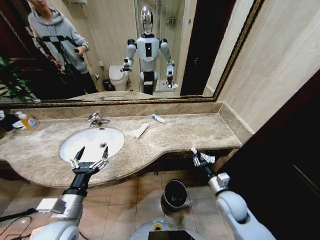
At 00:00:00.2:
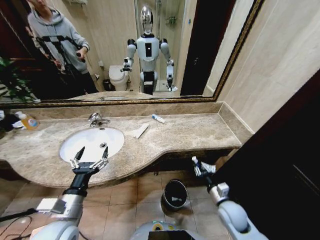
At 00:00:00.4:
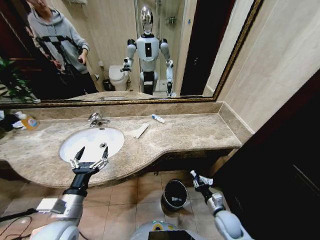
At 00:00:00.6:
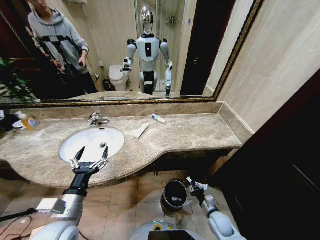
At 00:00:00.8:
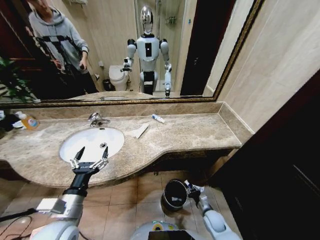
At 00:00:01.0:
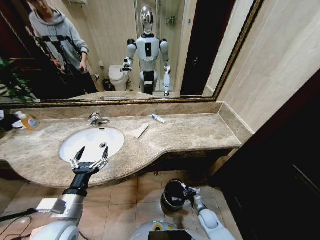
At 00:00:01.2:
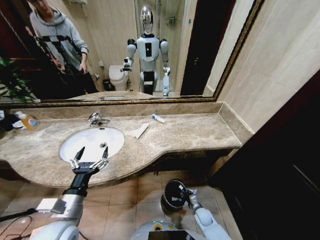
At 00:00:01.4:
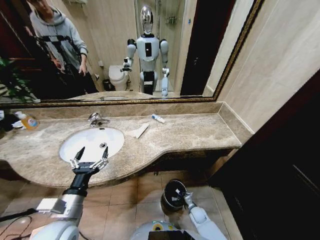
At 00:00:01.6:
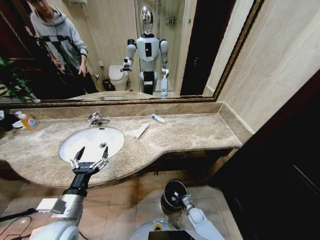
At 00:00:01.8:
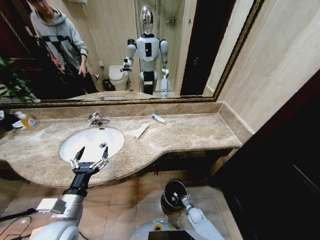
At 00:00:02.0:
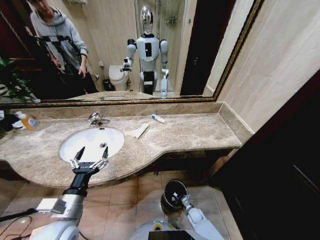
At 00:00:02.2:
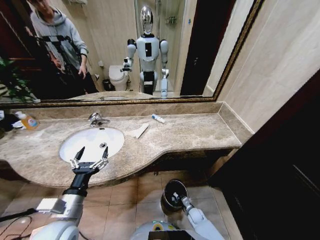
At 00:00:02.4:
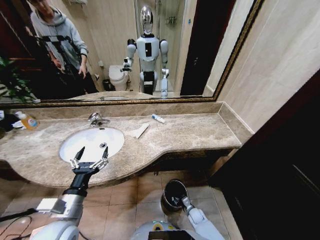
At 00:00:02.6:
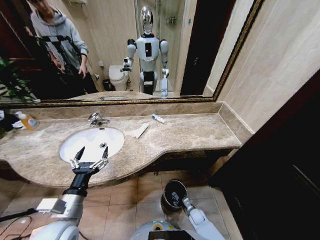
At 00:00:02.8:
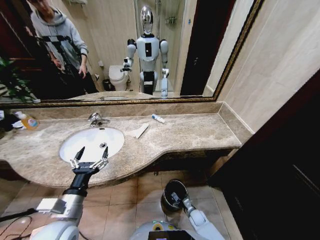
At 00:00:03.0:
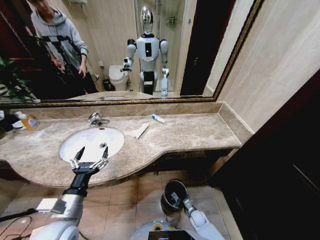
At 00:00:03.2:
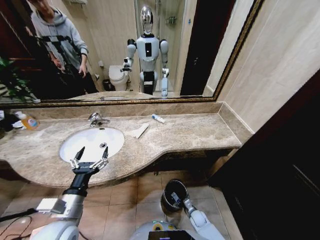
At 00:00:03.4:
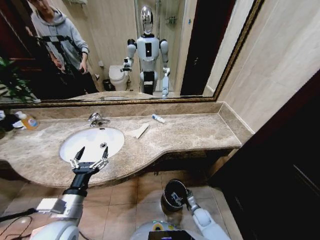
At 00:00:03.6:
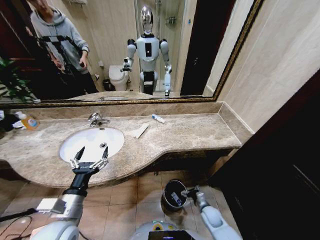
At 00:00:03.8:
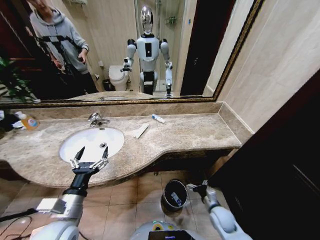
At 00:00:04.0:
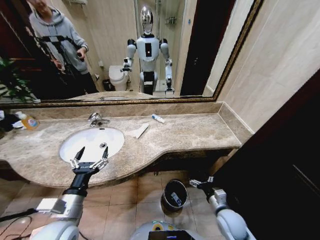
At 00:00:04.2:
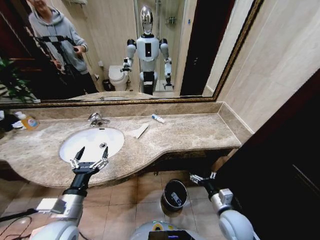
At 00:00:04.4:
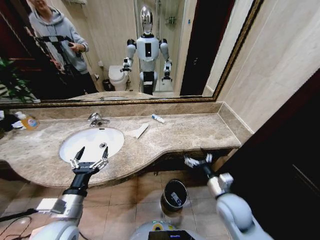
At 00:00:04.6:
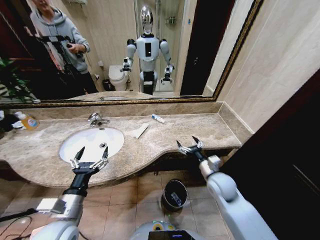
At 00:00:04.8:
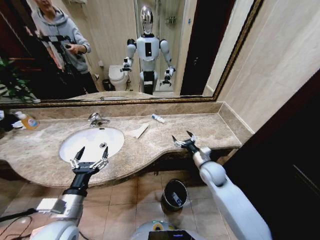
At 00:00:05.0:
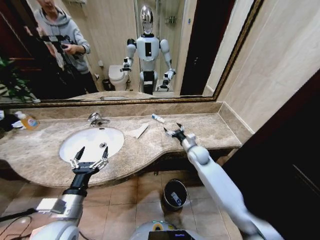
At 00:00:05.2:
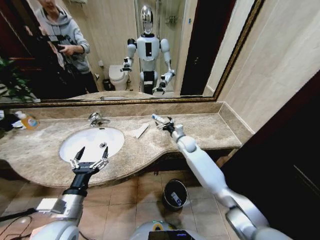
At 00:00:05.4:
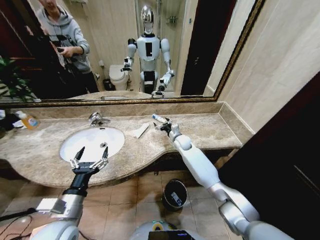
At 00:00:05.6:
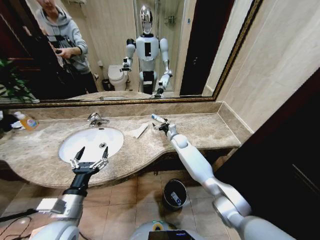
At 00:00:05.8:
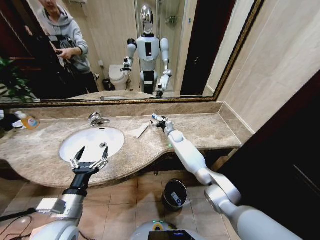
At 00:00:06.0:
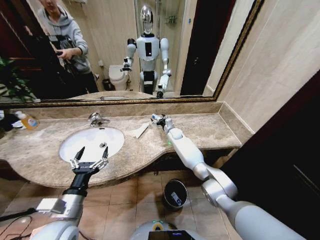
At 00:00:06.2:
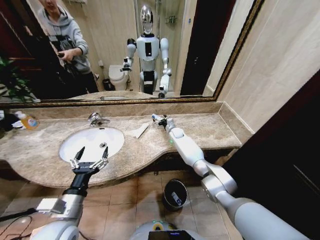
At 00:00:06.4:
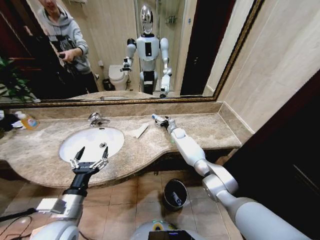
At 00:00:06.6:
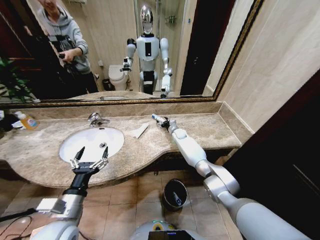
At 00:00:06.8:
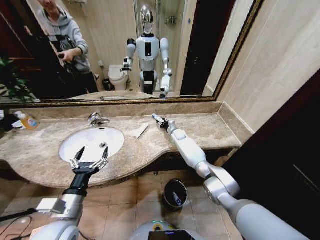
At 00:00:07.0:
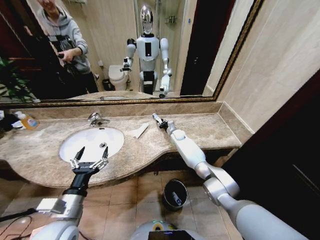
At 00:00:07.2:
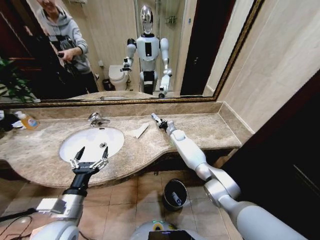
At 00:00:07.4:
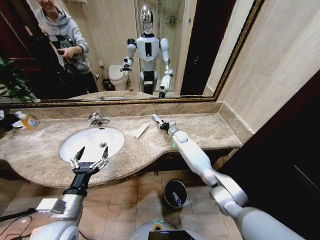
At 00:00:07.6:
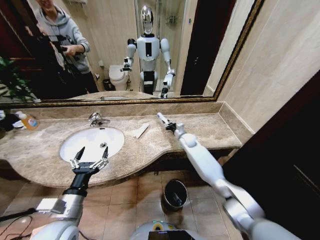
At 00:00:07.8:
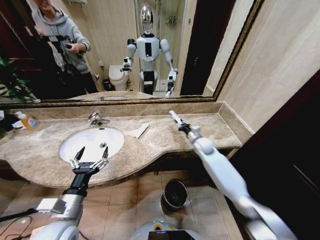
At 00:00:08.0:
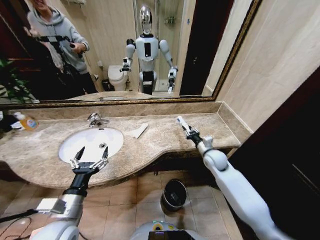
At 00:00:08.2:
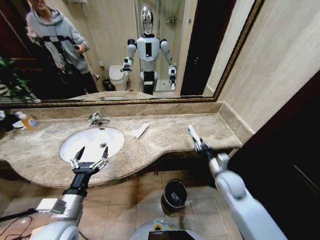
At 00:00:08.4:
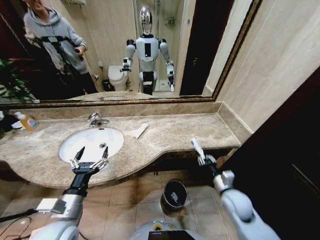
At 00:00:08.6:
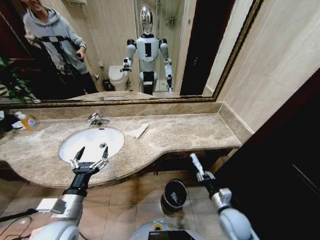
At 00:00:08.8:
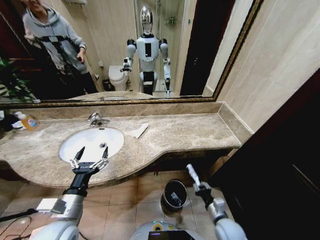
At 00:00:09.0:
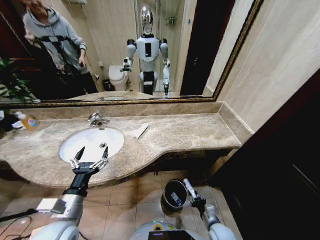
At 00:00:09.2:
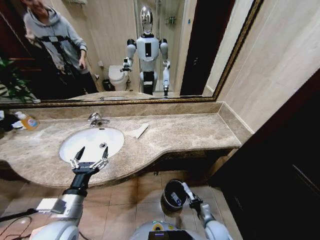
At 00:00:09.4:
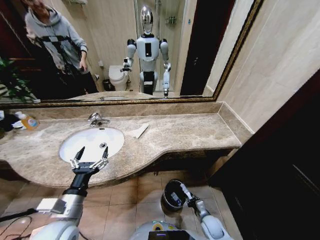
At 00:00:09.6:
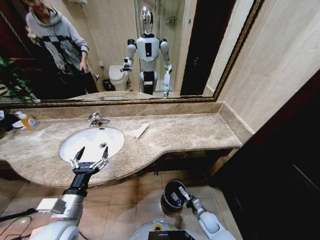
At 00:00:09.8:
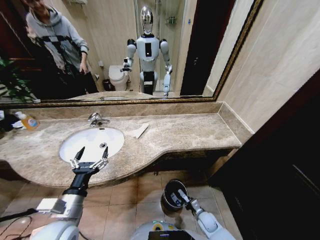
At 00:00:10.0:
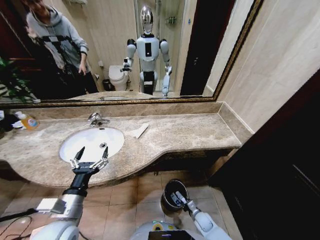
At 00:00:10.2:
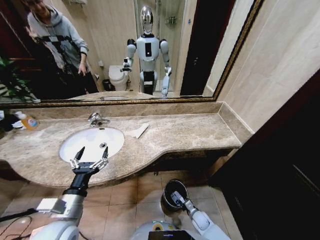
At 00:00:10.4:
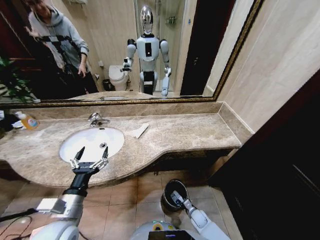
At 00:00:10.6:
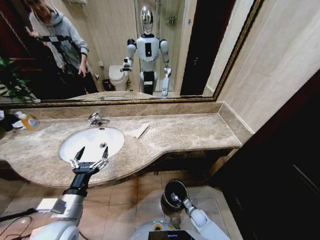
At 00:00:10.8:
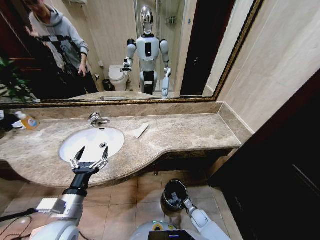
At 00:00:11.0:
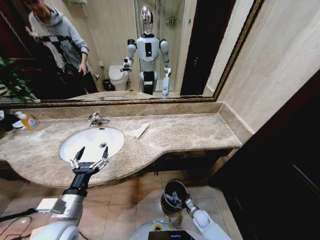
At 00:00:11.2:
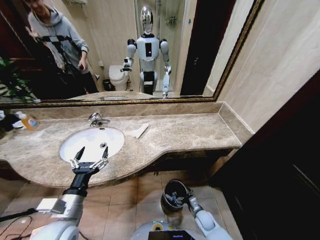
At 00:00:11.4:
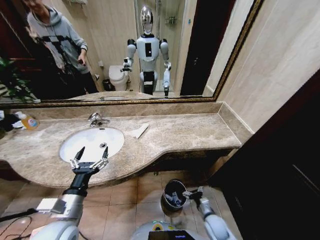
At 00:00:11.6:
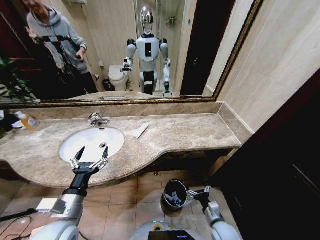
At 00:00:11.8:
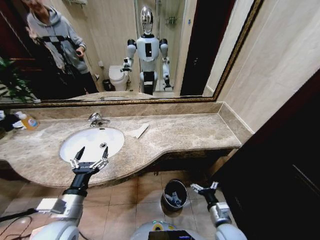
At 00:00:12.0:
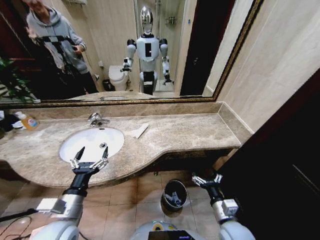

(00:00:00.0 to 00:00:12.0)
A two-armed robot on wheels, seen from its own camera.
Task of the whole recording: Pick up the trash from the sink and place it in the trash bin.
00:00:00.0 - 00:00:01.6: The right gripper goes approximately 30 cm downward.
00:00:03.0 - 00:00:04.4: The right gripper heads upward, covering roughly 35 cm.
00:00:04.4 - 00:00:06.0: The right gripper is displaced forward by approximately 40 cm.
00:00:06.0 - 00:00:07.6: The right gripper moves backward and to the right, approximately 10 cm, and closes its fingers.
00:00:07.6 - 00:00:09.0: The right gripper moves backward and downward, roughly 40 cm.
00:00:09.0 - 00:00:10.4: The right gripper heads downward and forward, covering about 15 cm.
00:00:10.4 - 00:00:12.0: The right gripper is displaced upward by some 30 cm, and opens.

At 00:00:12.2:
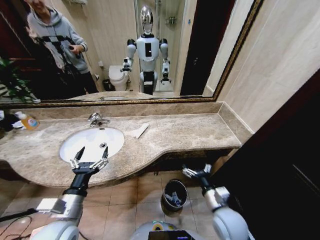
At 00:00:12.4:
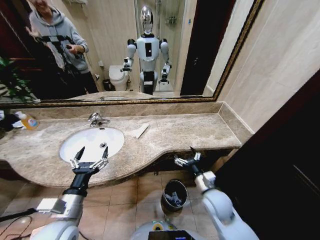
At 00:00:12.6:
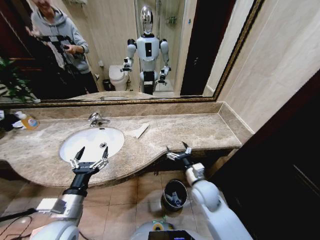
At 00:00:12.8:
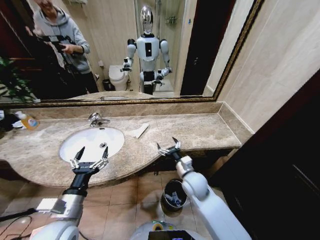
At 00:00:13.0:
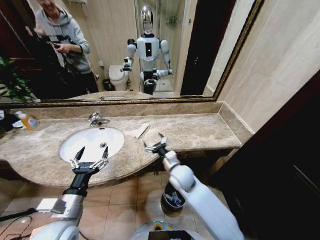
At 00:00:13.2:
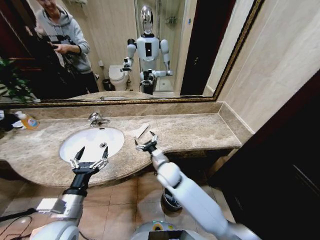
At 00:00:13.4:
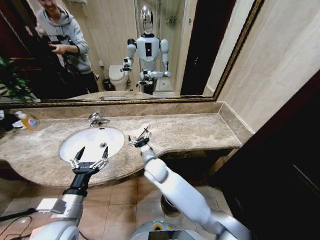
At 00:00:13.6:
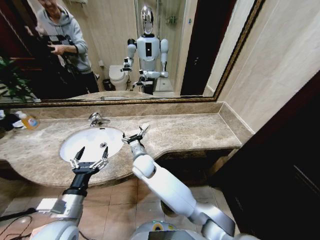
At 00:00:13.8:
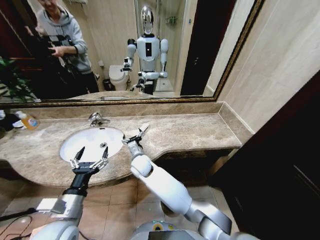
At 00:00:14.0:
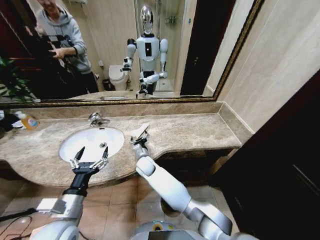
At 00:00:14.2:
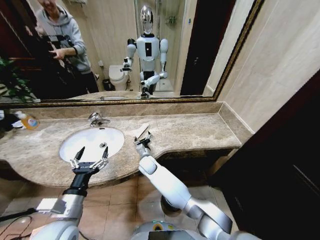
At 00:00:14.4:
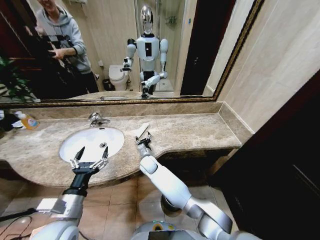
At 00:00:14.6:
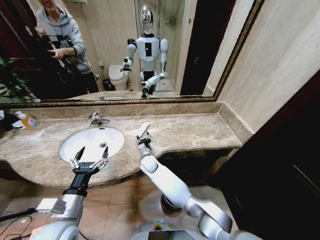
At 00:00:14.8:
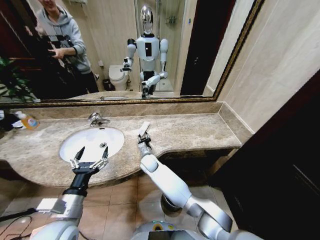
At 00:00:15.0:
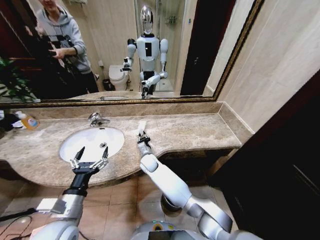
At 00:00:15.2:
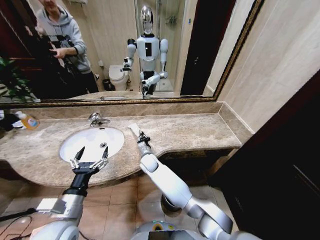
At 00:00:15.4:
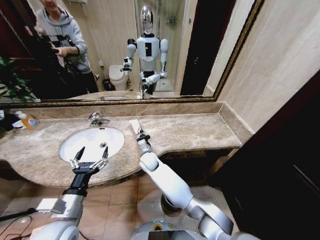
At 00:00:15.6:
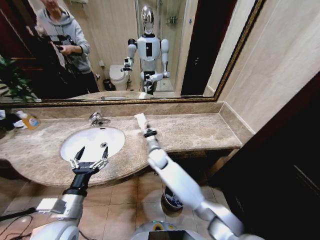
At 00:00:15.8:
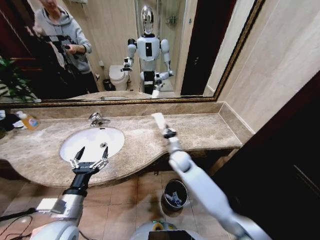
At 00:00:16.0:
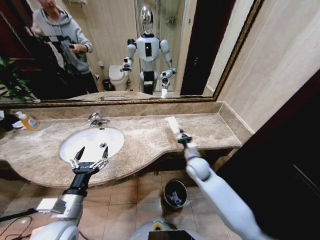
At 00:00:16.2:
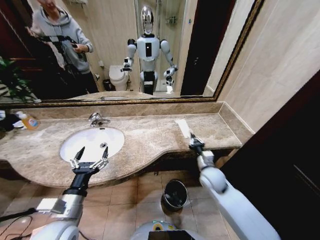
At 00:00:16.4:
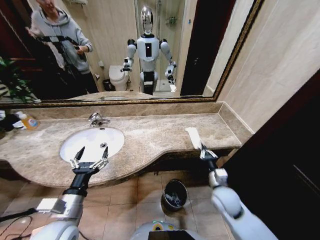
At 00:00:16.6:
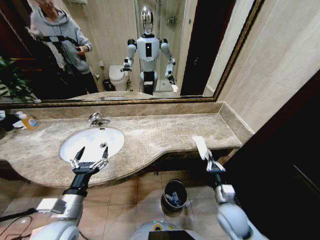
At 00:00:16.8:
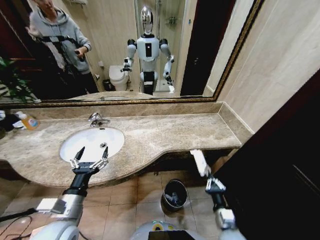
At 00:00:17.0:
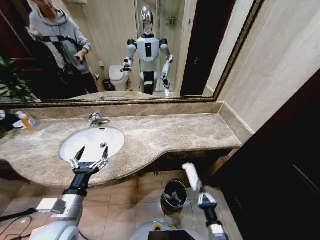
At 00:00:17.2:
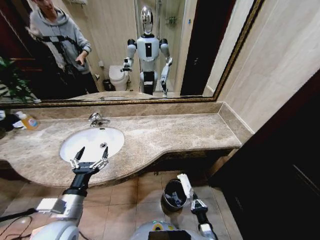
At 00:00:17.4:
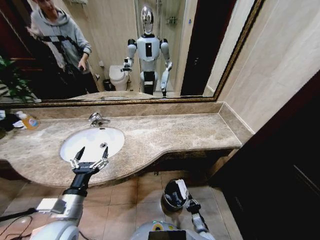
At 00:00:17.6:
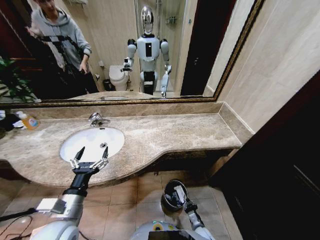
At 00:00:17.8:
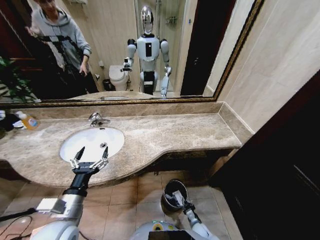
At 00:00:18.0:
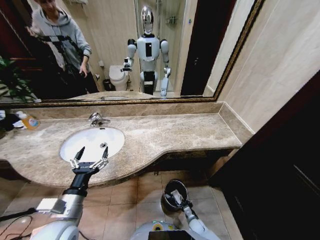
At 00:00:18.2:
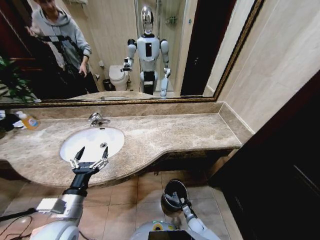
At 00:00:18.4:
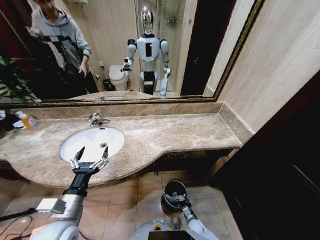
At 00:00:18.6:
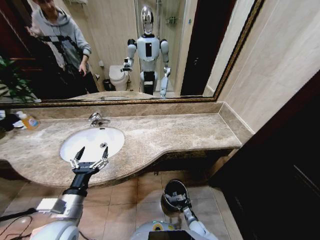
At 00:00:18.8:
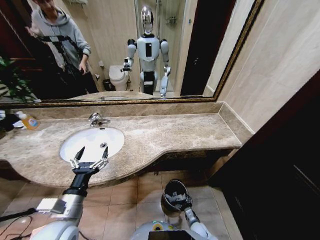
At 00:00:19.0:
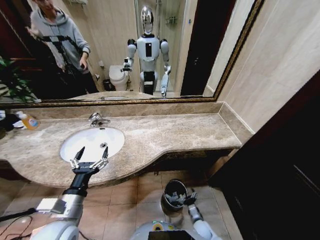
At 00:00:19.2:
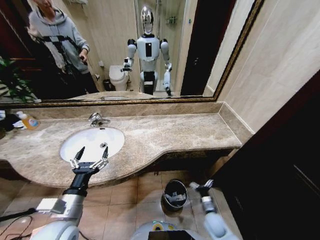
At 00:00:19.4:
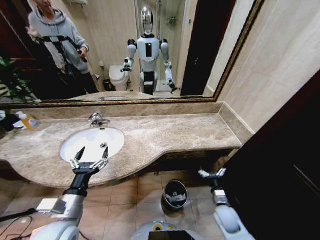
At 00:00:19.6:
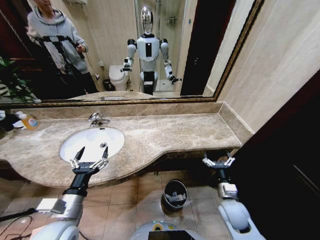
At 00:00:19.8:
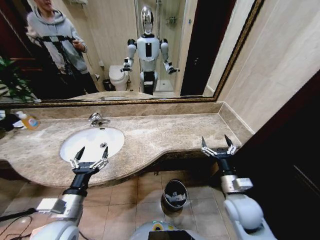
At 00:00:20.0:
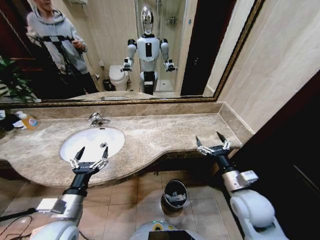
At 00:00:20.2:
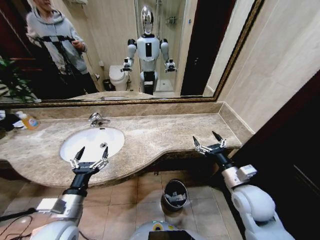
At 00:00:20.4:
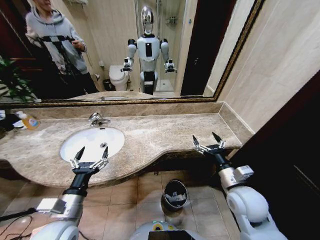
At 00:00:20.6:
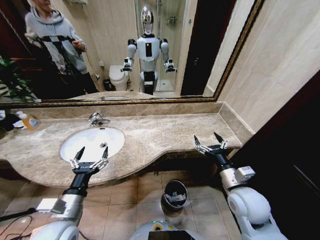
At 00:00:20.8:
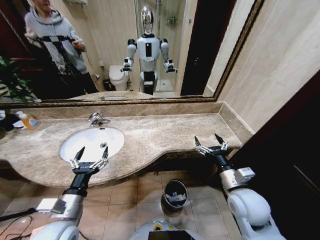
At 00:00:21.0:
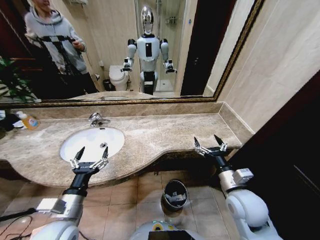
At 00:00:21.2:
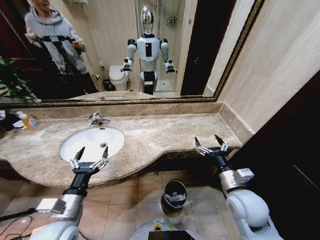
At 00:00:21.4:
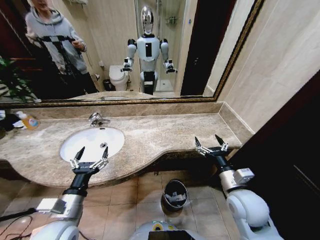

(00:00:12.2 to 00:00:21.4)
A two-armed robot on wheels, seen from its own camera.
Task of the whole recording: Pick up the trash from the sink and place it in the trash bin.
00:00:12.2 - 00:00:13.8: The right gripper heads to the left and forward, covering approximately 40 cm.
00:00:13.8 - 00:00:15.2: The right gripper goes approximately 10 cm downward and forward, and closes.
00:00:15.2 - 00:00:16.8: The right gripper goes some 40 cm to the right and backward.
00:00:16.8 - 00:00:18.4: The right gripper is displaced downward by about 25 cm, and opens its fingers.
00:00:18.4 - 00:00:19.8: The right gripper moves upward, some 35 cm, and opens its fingers.
00:00:19.8 - 00:00:21.4: The right gripper is displaced upward by approximately 5 cm.
